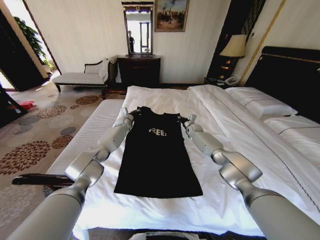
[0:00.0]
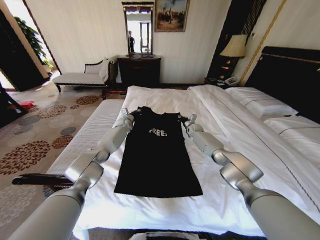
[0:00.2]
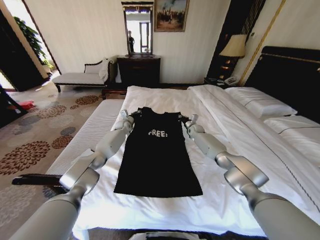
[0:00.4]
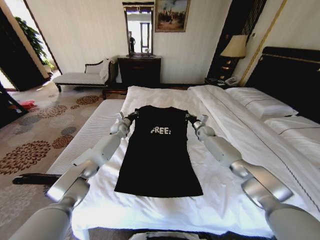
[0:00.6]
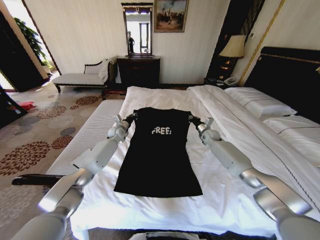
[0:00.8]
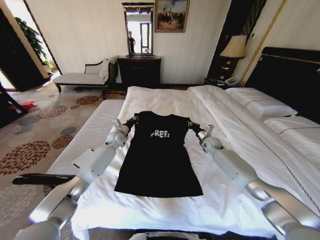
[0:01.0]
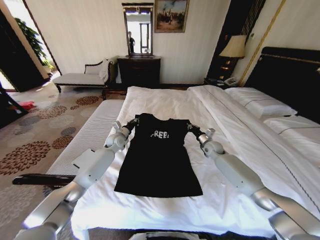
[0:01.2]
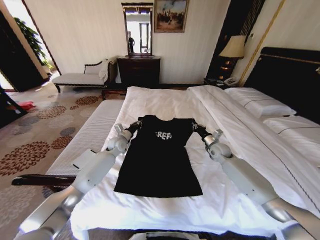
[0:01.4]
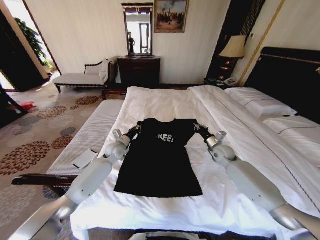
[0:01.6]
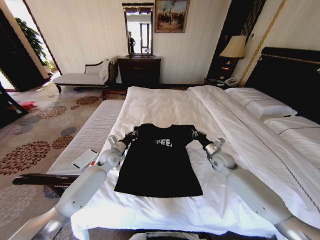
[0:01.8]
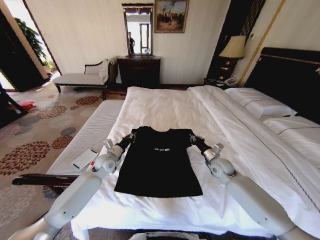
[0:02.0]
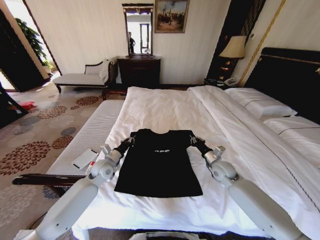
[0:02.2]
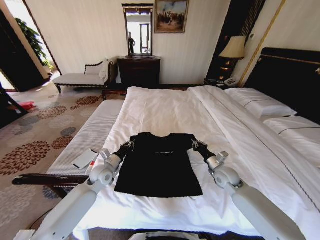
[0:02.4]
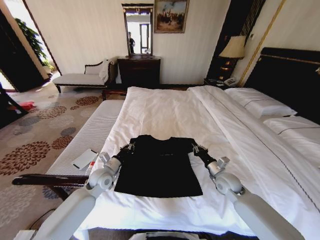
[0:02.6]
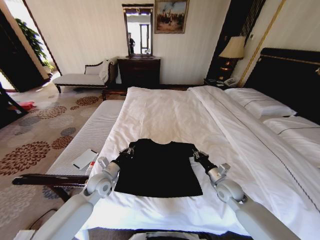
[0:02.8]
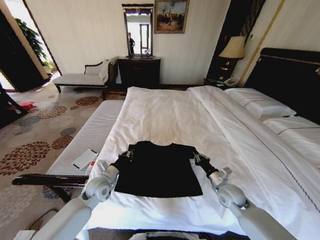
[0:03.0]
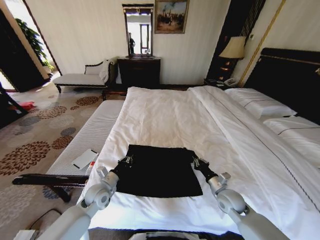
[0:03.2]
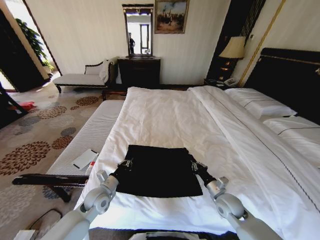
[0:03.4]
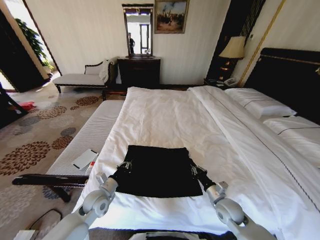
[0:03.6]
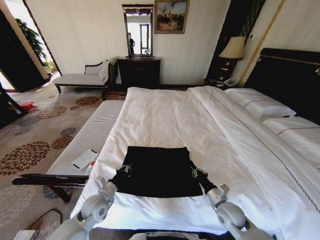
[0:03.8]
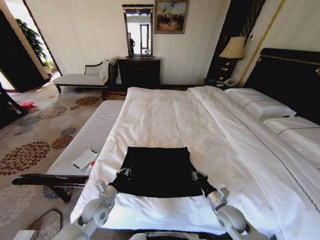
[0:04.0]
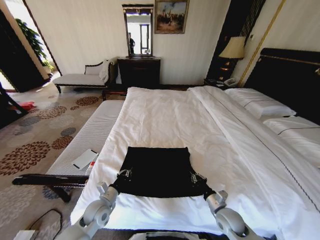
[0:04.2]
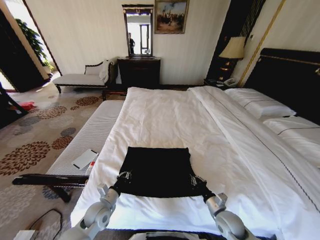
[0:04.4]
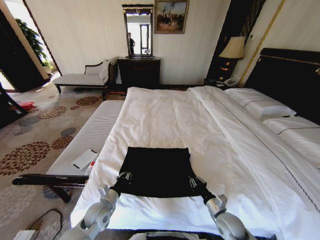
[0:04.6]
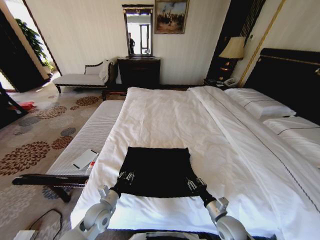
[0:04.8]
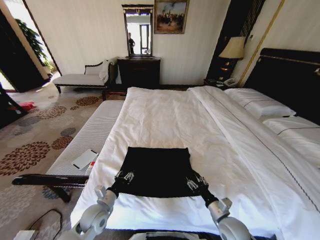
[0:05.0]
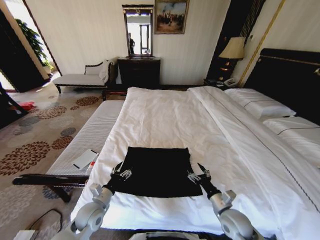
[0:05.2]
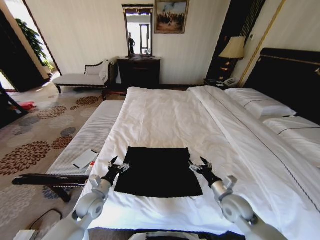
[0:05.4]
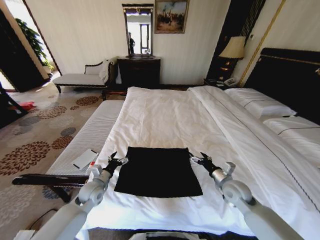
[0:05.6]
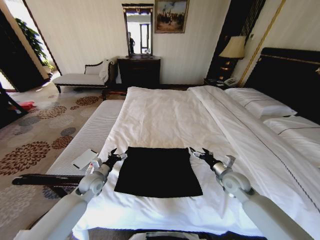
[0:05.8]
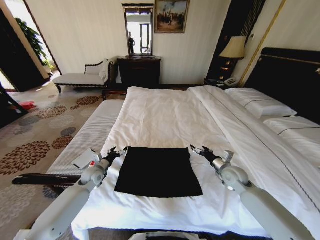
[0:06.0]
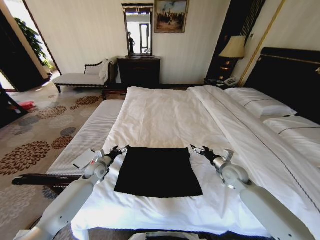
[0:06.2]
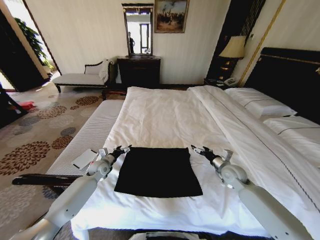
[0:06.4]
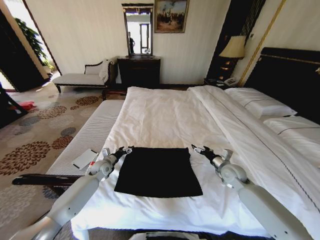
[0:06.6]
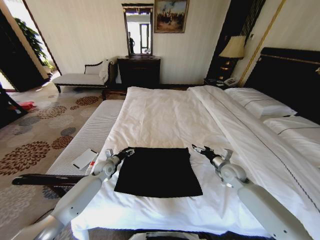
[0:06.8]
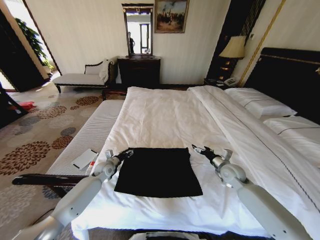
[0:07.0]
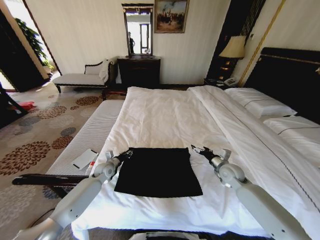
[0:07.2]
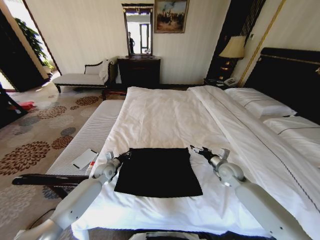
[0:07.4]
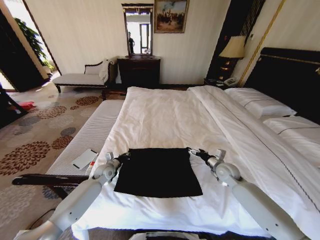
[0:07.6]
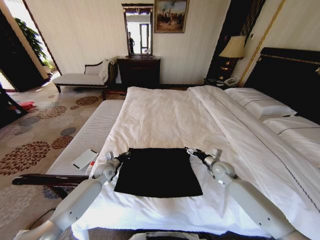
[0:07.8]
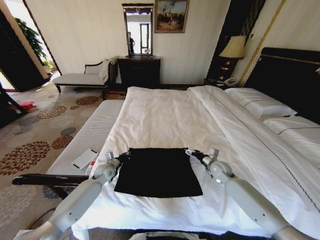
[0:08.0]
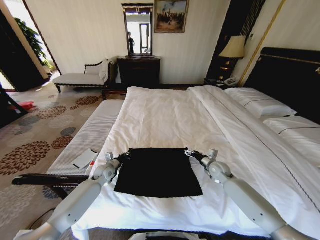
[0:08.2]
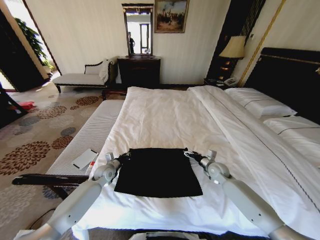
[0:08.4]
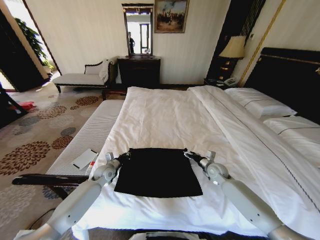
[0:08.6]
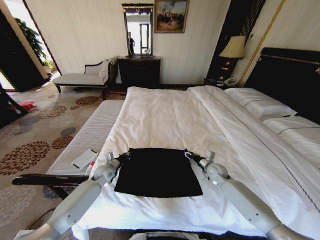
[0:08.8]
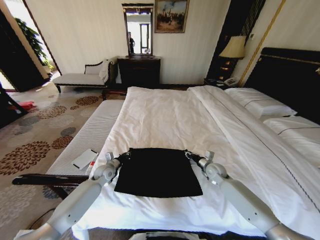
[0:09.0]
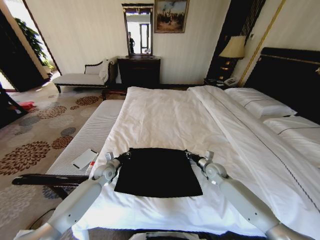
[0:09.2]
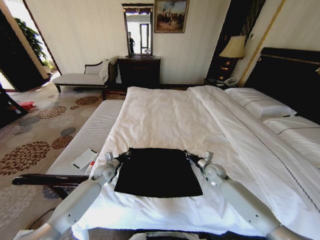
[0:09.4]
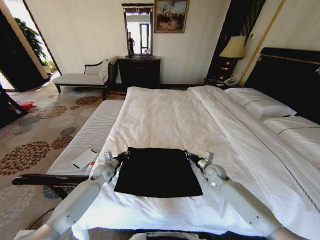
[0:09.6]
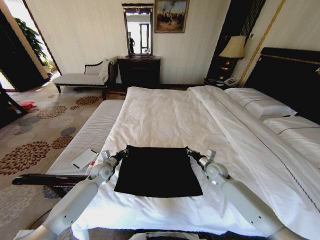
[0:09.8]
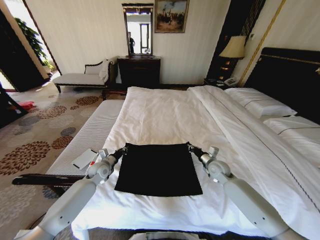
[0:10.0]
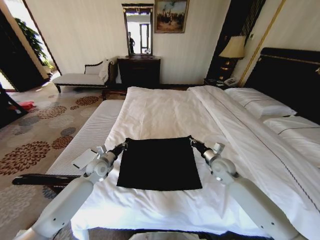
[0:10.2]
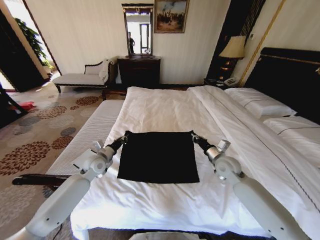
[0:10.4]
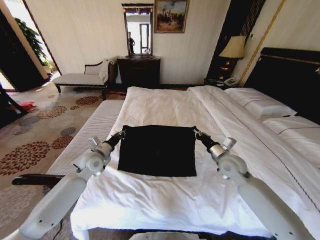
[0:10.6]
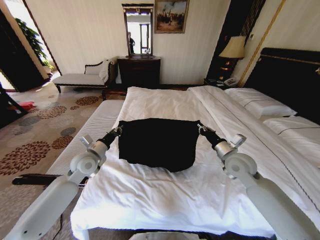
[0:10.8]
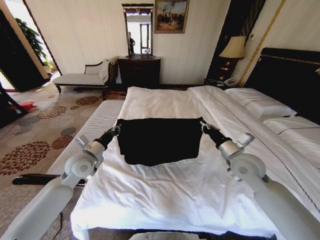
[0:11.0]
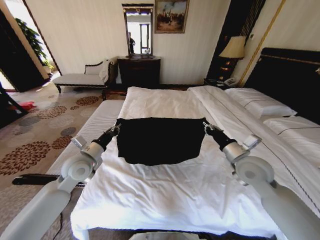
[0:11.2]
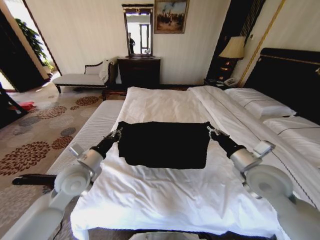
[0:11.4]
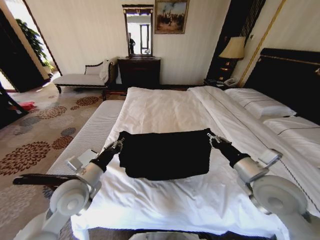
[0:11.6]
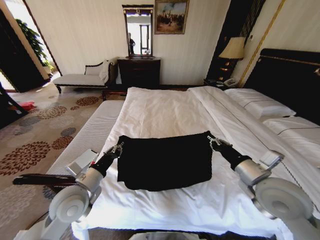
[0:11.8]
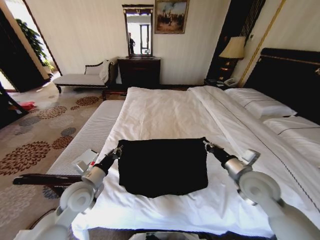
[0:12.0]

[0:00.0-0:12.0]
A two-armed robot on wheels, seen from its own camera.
Task of the whole recording: Fold the clothes on the bed.
0:00.0 to 0:01.6: Both grippers travel together backward, some 20 cm.
0:01.6 to 0:03.0: Both grippers travel together backward, some 20 cm.
0:03.0 to 0:04.4: Both grippers travel together backward and downward, some 10 cm.
0:04.4 to 0:06.0: The right gripper shifts some 20 cm forward and upward, and opens up. The left gripper heads forward and to the left, covering about 15 cm, and opens up.
0:06.0 to 0:07.6: The left gripper changes place by approximately 5 cm, and closes its fingers.
0:07.6 to 0:09.0: The right gripper shifts by approximately 5 cm, and closes its fingers.
0:09.0 to 0:10.4: The grippers both shift upward by roughly 10 cm. The right gripper closes up.
0:10.4 to 0:12.0: The left gripper travels backward by some 15 cm, while the right gripper moves backward and upward, roughly 15 cm.

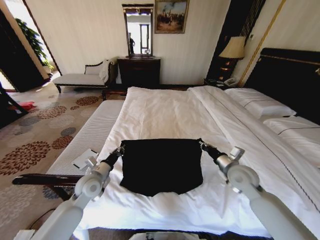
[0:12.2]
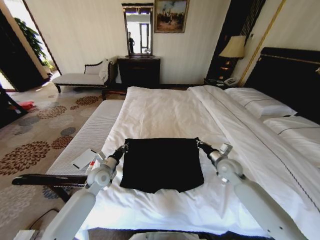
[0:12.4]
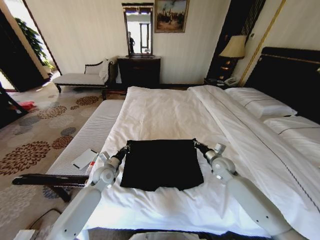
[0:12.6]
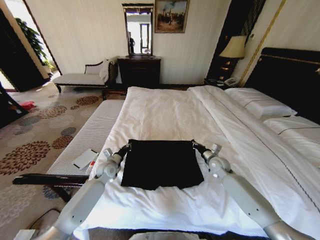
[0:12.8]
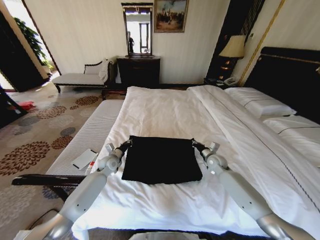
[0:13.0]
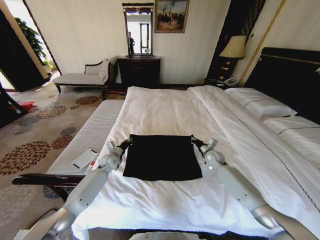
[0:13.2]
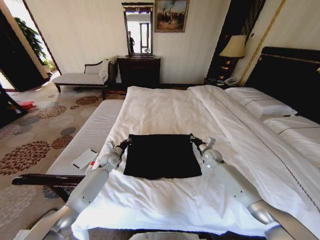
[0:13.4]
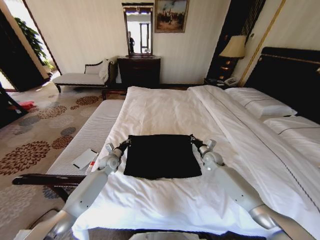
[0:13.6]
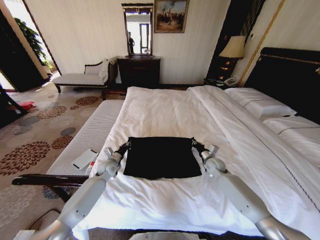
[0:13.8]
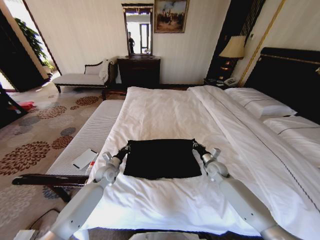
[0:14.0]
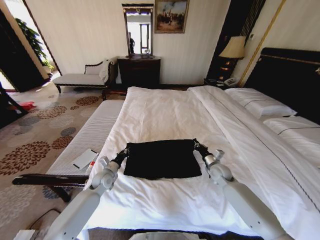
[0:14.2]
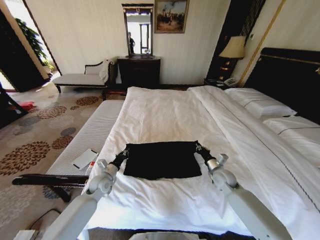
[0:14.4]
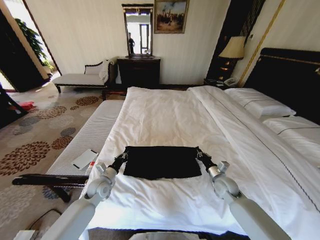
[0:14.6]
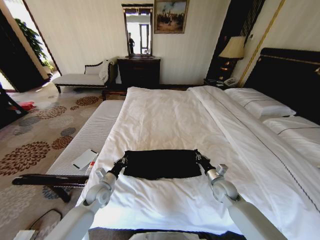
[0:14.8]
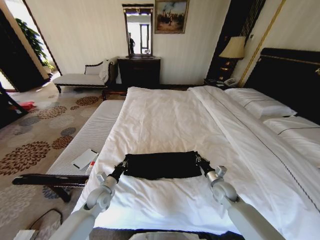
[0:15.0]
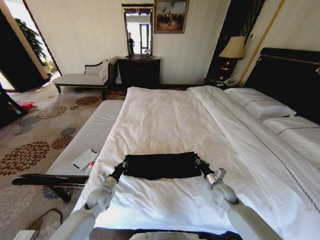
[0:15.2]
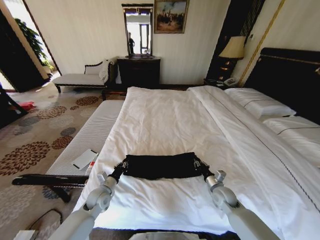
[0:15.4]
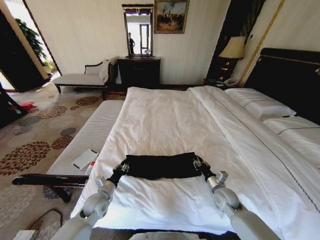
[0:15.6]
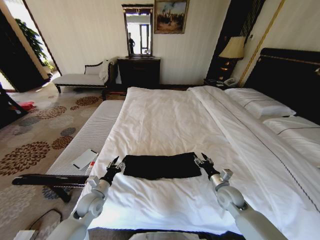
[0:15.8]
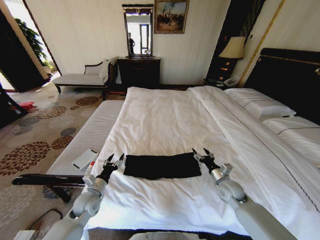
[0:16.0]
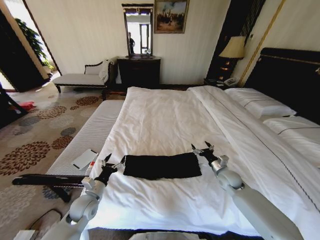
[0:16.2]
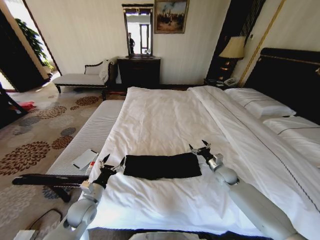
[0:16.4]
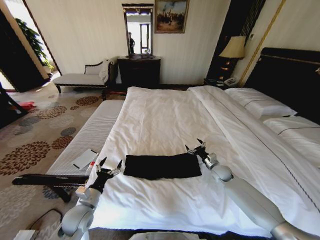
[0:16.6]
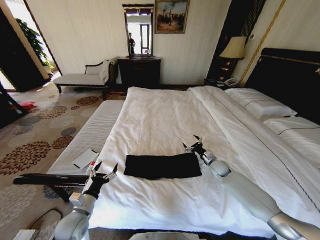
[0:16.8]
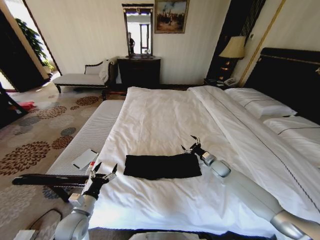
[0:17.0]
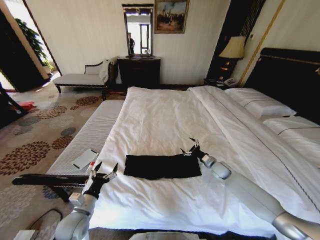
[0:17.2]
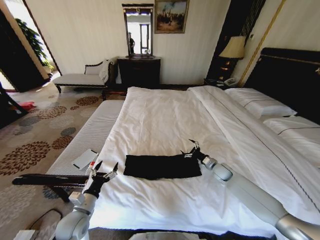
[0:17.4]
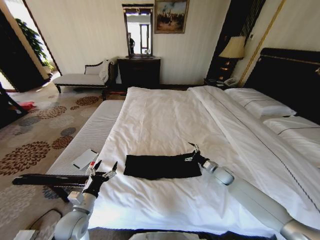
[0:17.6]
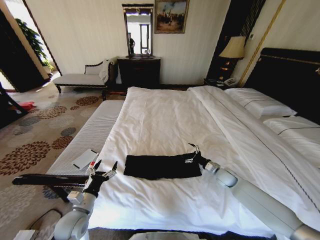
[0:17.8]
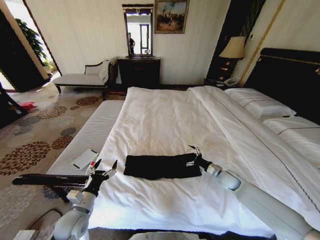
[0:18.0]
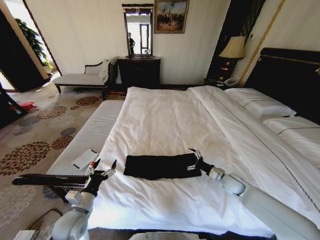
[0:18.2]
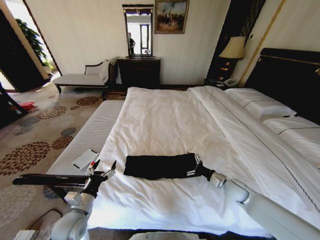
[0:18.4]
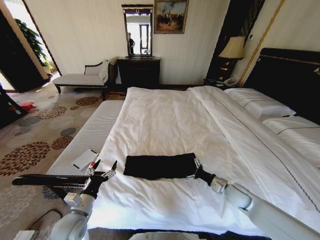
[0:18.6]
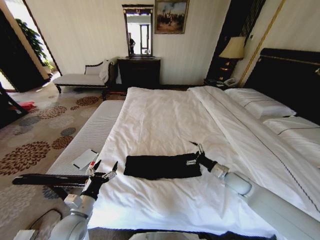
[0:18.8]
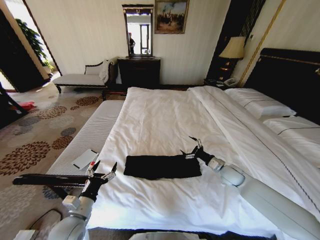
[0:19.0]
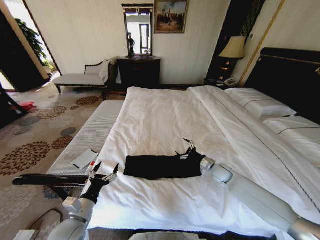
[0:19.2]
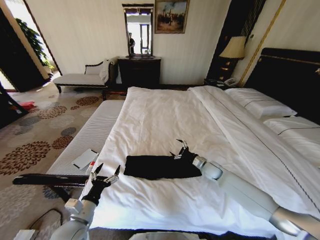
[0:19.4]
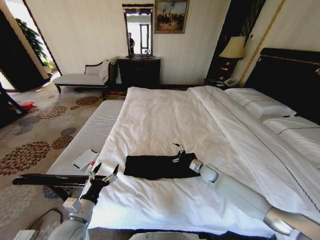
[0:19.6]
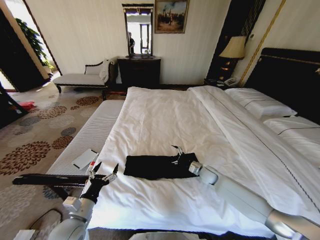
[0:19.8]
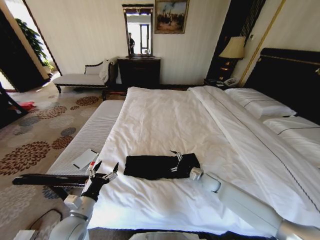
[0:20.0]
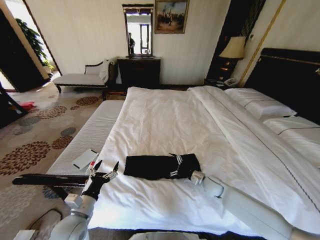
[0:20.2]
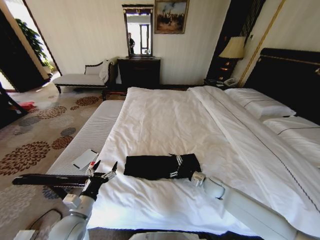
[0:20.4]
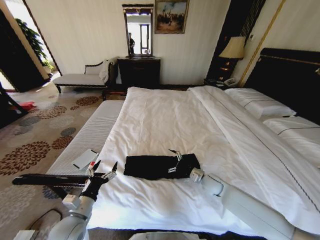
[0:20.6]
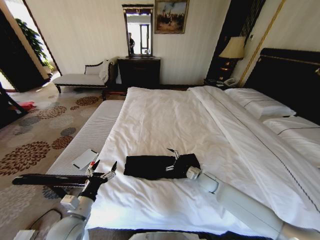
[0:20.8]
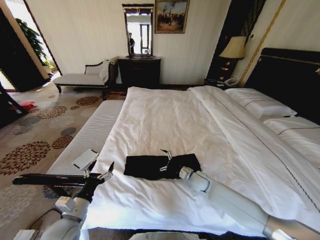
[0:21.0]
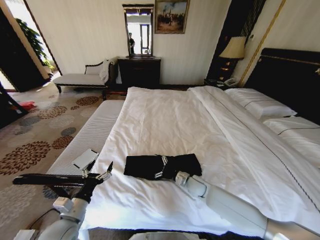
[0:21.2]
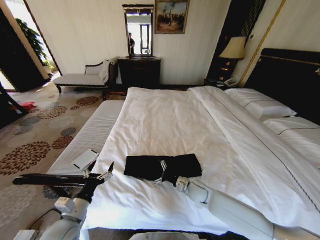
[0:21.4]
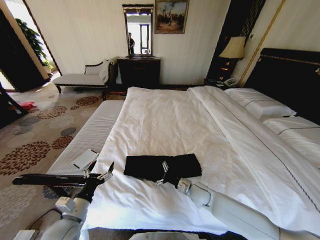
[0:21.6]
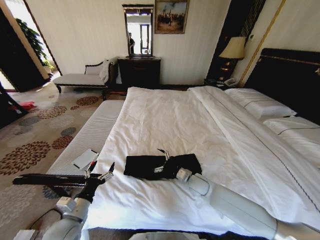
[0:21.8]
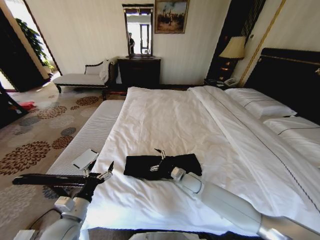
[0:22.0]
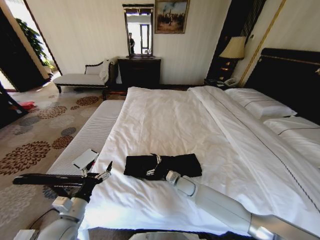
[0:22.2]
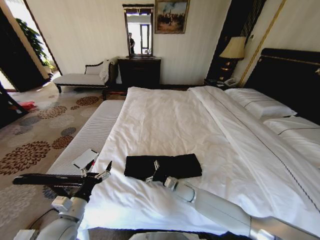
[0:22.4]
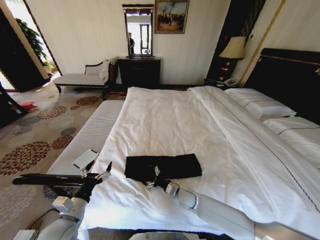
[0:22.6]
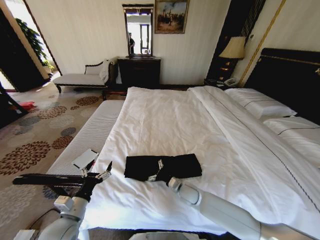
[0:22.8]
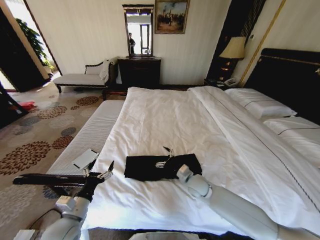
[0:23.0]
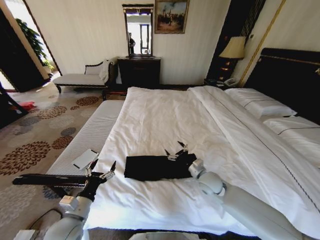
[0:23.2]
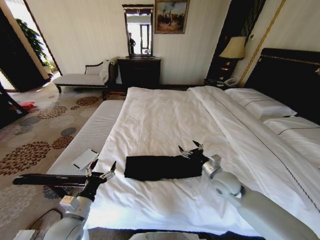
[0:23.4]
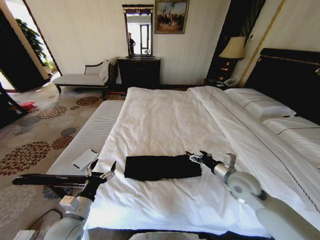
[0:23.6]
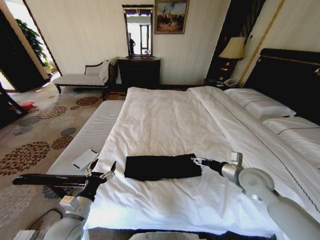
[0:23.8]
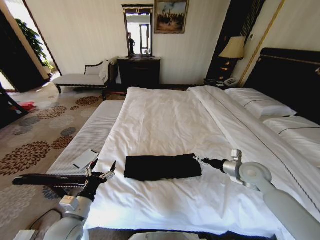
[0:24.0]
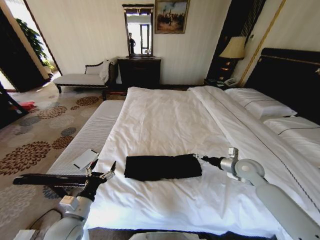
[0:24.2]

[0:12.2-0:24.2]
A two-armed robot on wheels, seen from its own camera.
Task of the whole recording: Fold the clothes on the bed.
0:12.2 to 0:13.8: The left gripper is displaced forward and downward by approximately 15 cm; the right gripper is displaced downward and forward by about 20 cm.
0:13.8 to 0:15.2: The two grippers go approximately 15 cm backward.
0:15.2 to 0:16.6: The left gripper shifts about 10 cm backward, and opens up; the right gripper is displaced forward by some 10 cm, and opens.
0:16.6 to 0:18.2: The right gripper heads backward, covering approximately 5 cm.
0:18.2 to 0:19.8: The right gripper is displaced to the left and forward by roughly 10 cm.
0:19.8 to 0:21.2: The right gripper shifts about 10 cm to the left and backward.
0:21.2 to 0:22.6: The right gripper shifts approximately 5 cm to the left.
0:22.6 to 0:24.2: The right gripper goes about 30 cm to the right and upward.
